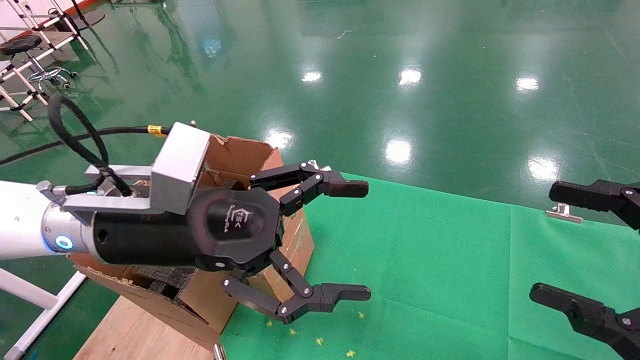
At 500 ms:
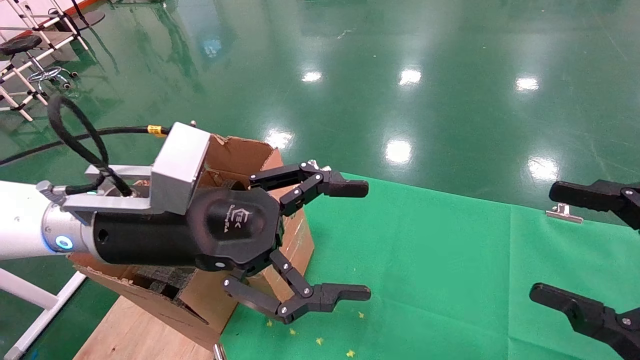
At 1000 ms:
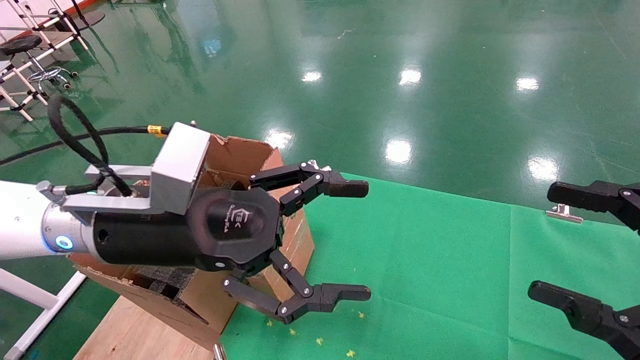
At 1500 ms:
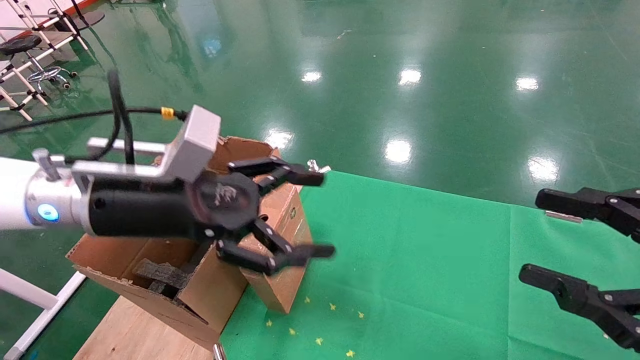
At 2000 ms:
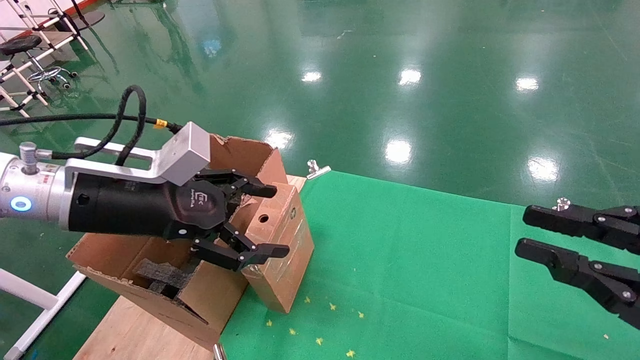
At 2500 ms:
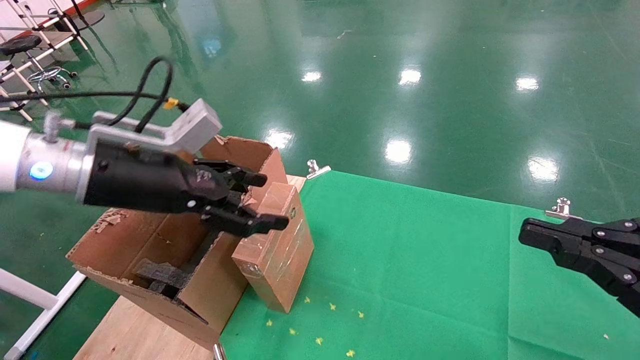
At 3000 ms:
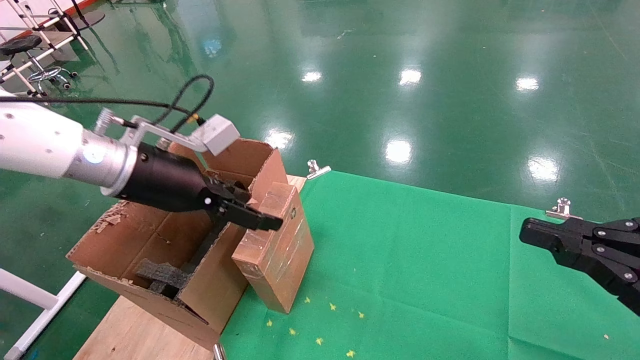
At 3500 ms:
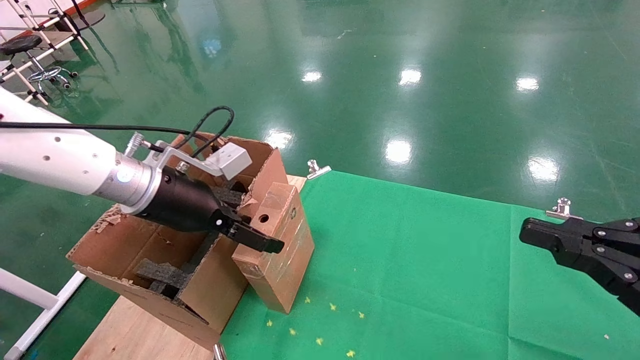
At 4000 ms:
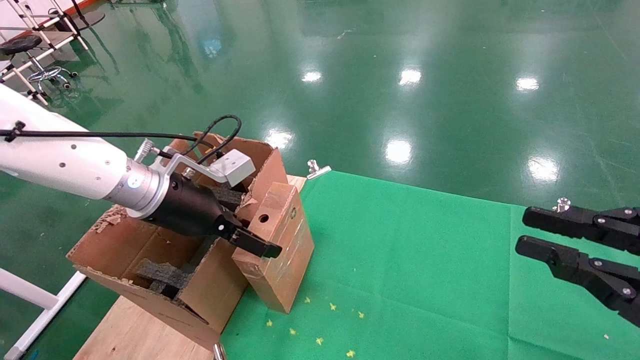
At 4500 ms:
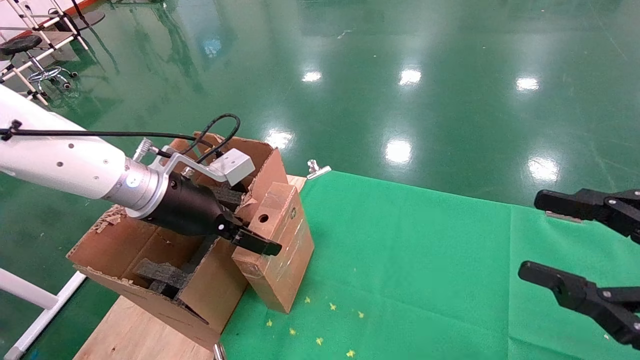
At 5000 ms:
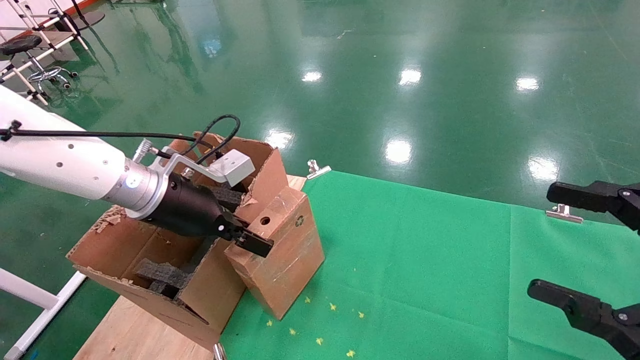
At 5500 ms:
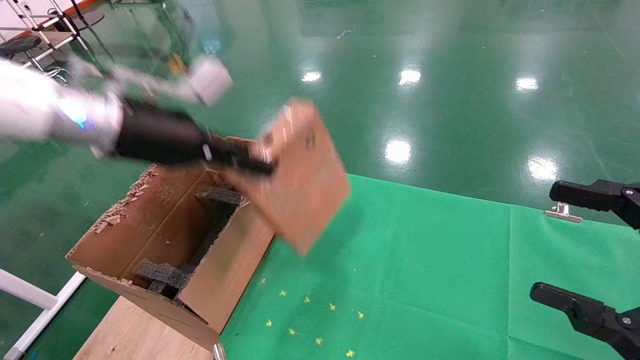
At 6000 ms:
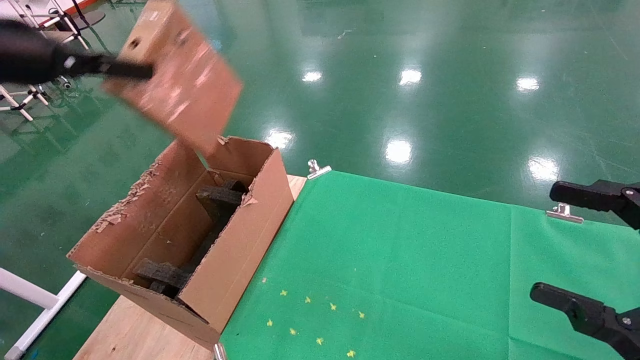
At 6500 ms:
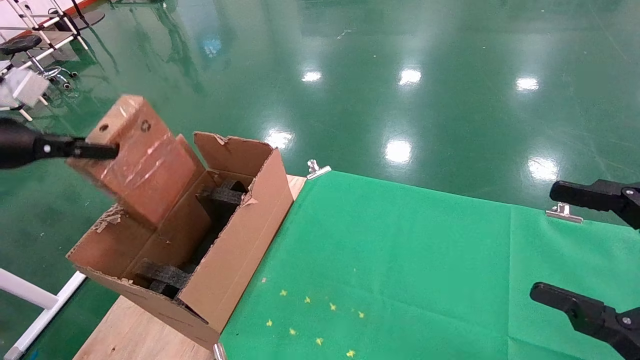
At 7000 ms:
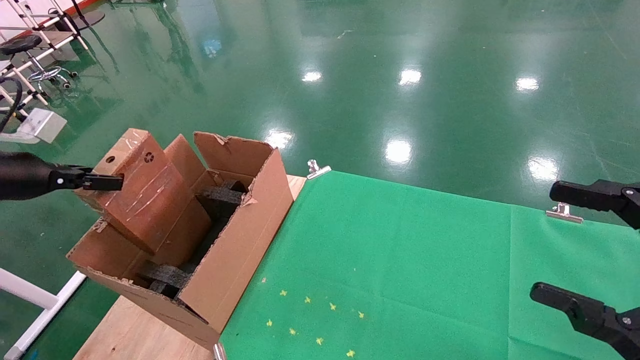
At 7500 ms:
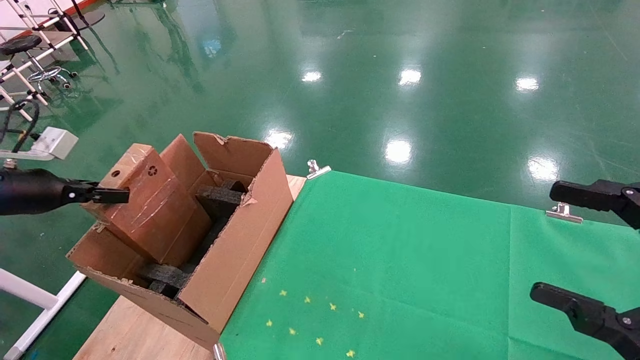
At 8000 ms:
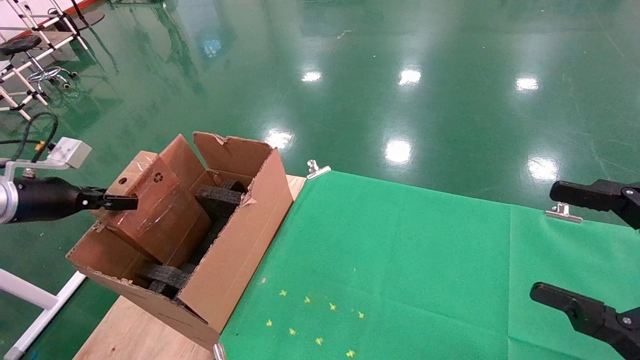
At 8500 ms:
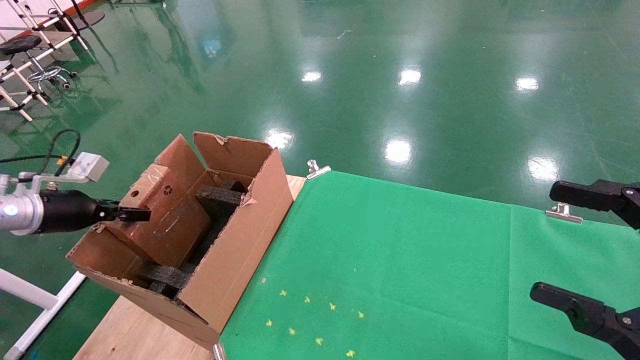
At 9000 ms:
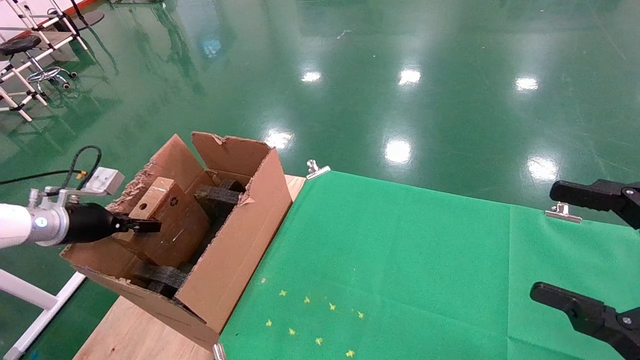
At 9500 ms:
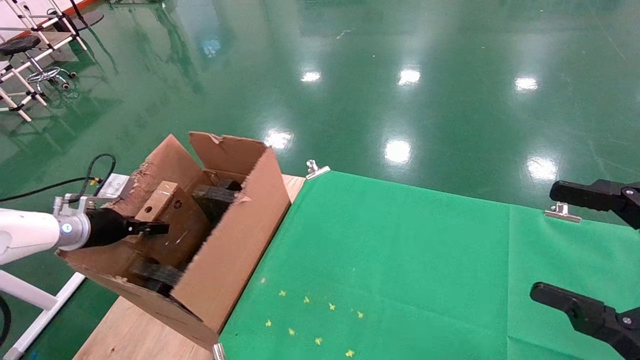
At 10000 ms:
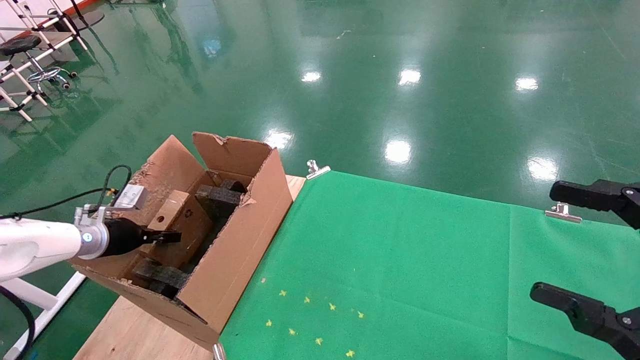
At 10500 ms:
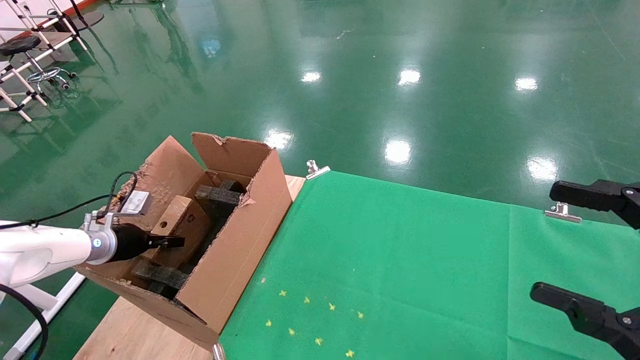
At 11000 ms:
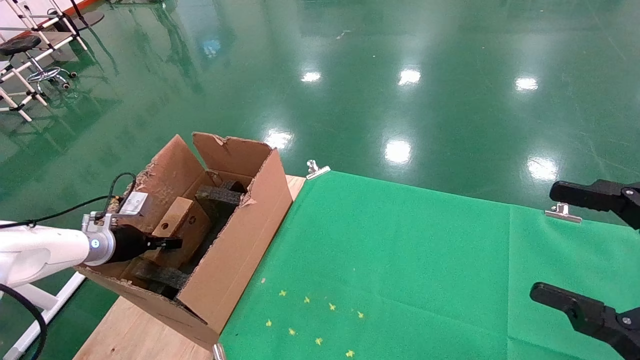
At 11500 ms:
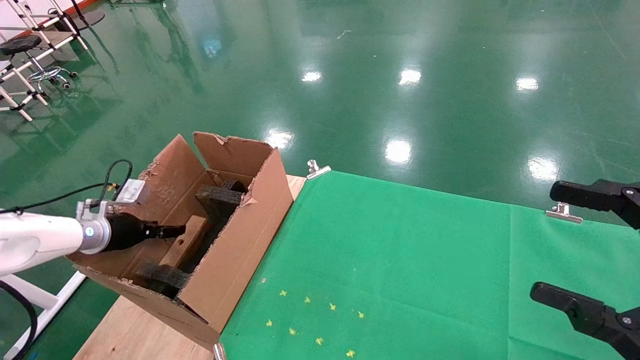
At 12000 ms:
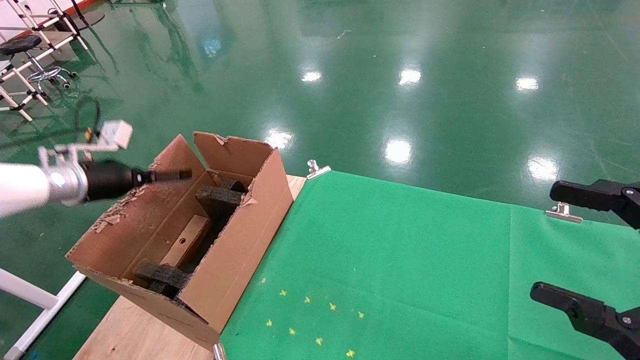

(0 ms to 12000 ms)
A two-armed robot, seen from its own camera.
Task of the whole recording: using a robotic arm to pick up a cardboard box and palace it the carton.
Step, 1500 ms - 4500 ms: Pick up the mouse and the power cord paper box.
0 ms - 2000 ms: The right gripper closes its fingers, while the left gripper is displaced to the left by some 5 cm.
2000 ms - 4000 ms: The left gripper moves forward, roughly 10 cm.
4000 ms - 6000 ms: The right gripper opens. The left gripper shifts some 25 cm to the left and upward, and closes its fingers.
6000 ms - 8000 ms: The left gripper travels downward and to the left by about 25 cm.
8000 ms - 10000 ms: The left gripper heads downward and forward, covering about 15 cm.
10000 ms - 12000 ms: The left gripper is displaced upward by about 15 cm, and opens.

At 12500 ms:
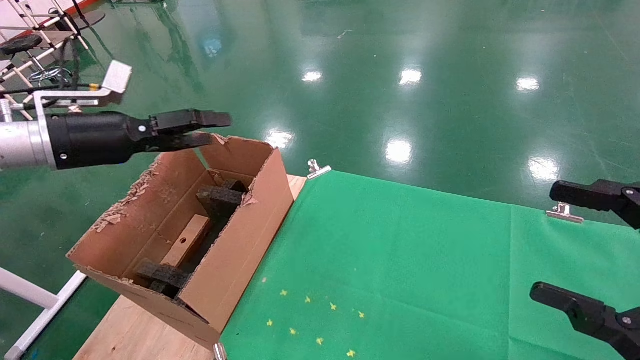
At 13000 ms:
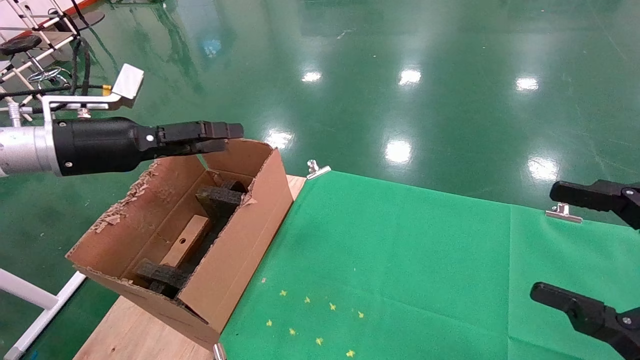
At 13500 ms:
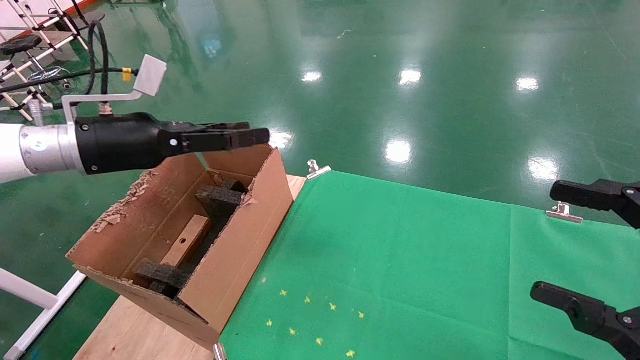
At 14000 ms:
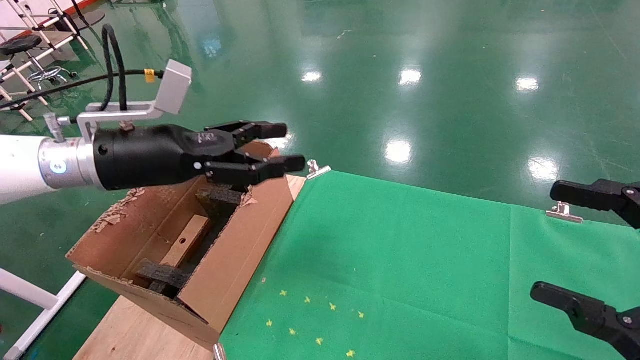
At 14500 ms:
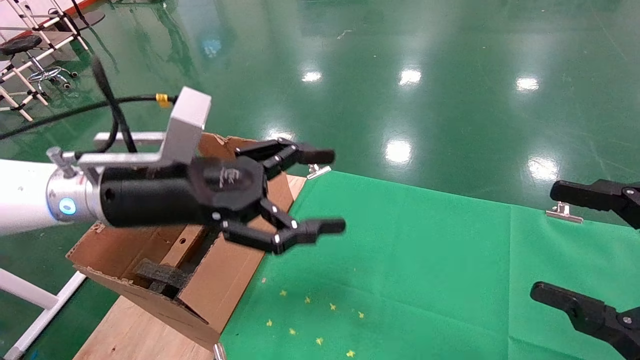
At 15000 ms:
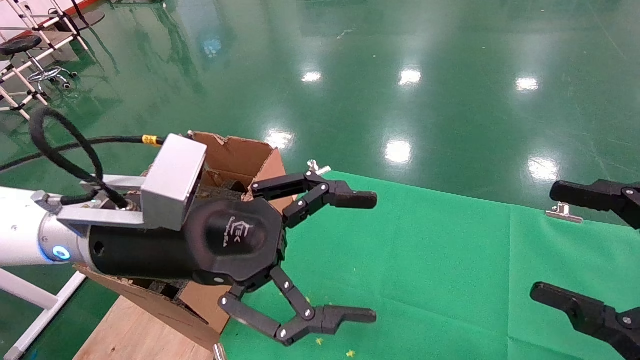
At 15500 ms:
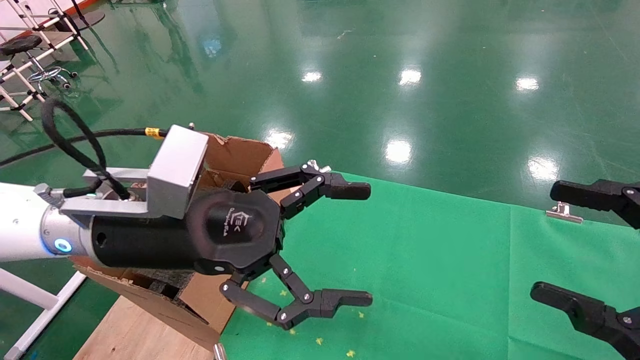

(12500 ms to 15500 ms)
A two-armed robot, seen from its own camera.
Task of the whole recording: using a robotic arm to pick up a cardboard box and palace it the carton.
12500 ms - 14000 ms: The left gripper is displaced to the right by approximately 15 cm.
14000 ms - 15500 ms: The left gripper moves to the right and backward, approximately 10 cm.
